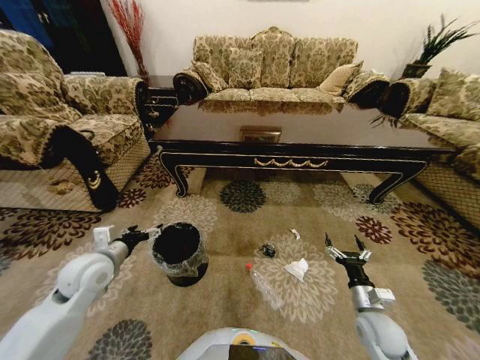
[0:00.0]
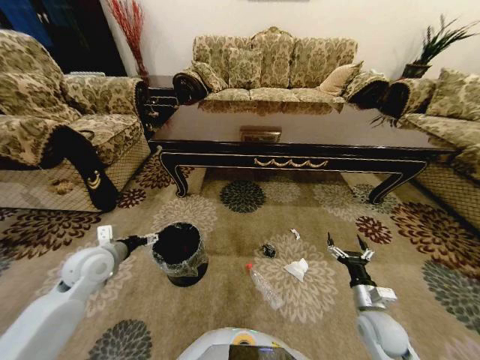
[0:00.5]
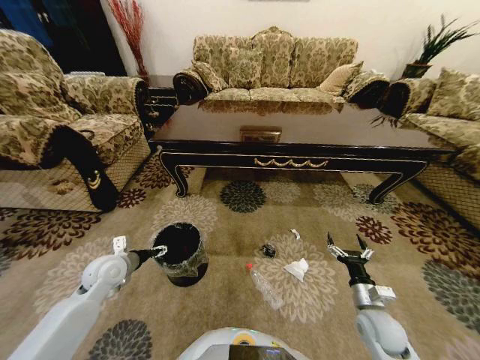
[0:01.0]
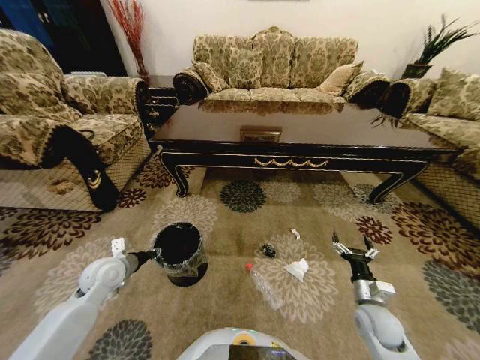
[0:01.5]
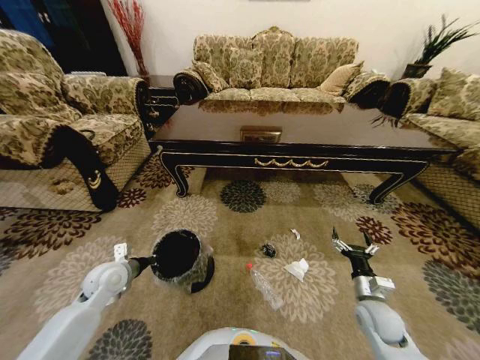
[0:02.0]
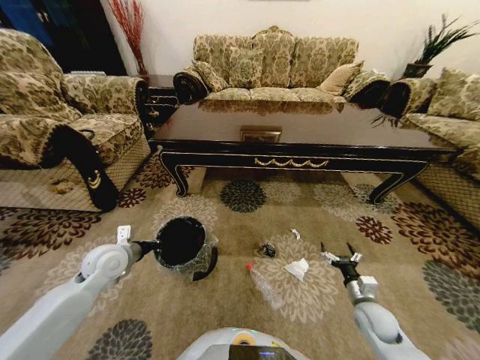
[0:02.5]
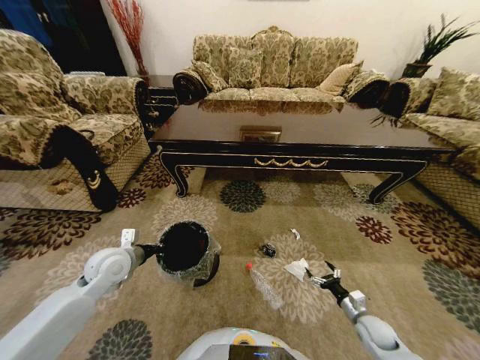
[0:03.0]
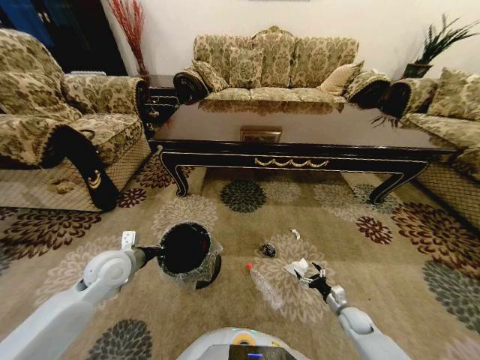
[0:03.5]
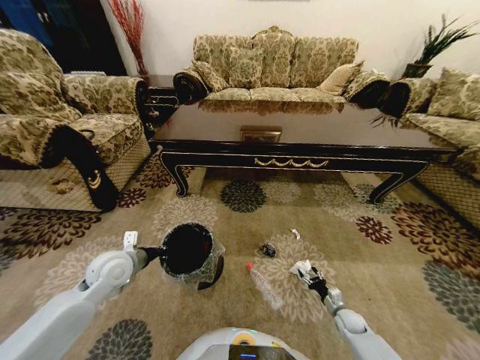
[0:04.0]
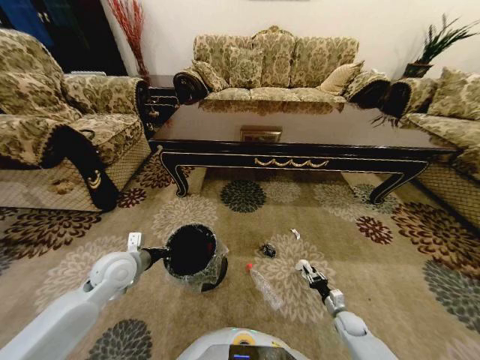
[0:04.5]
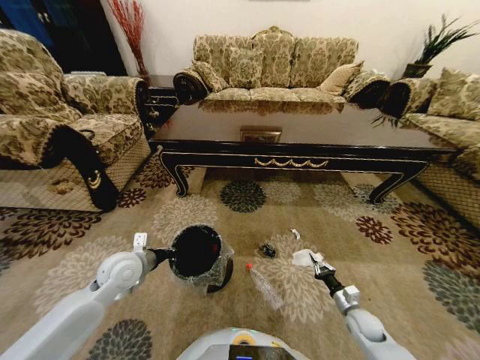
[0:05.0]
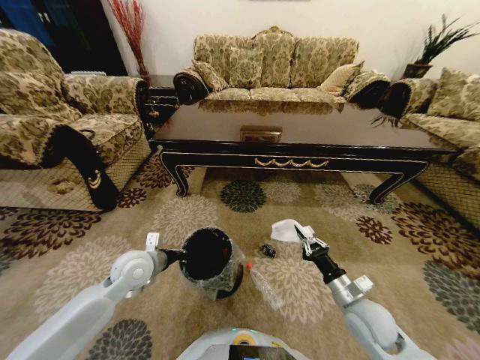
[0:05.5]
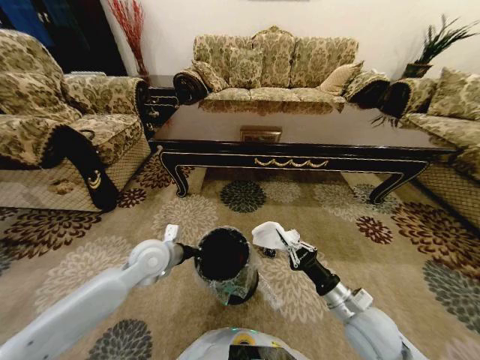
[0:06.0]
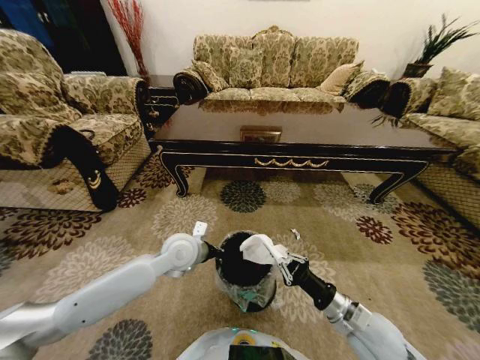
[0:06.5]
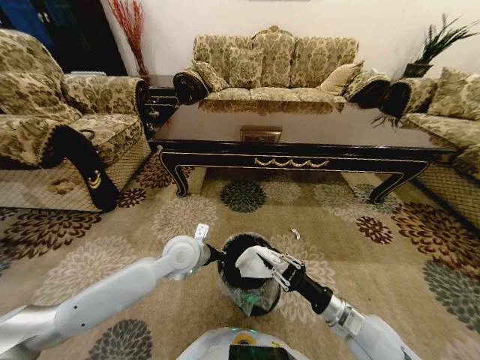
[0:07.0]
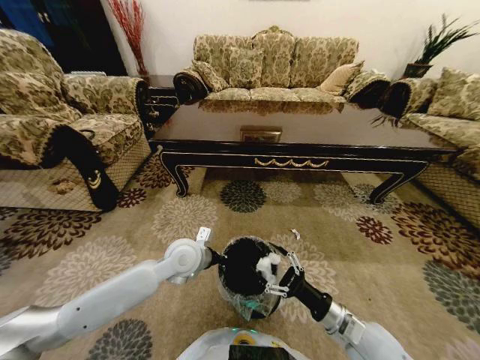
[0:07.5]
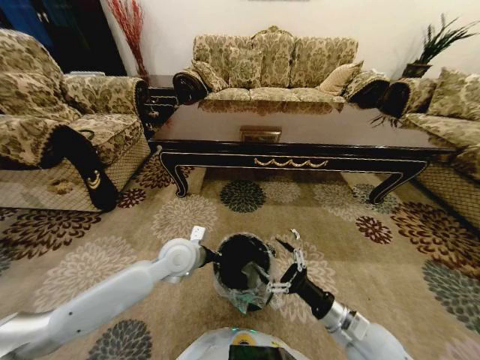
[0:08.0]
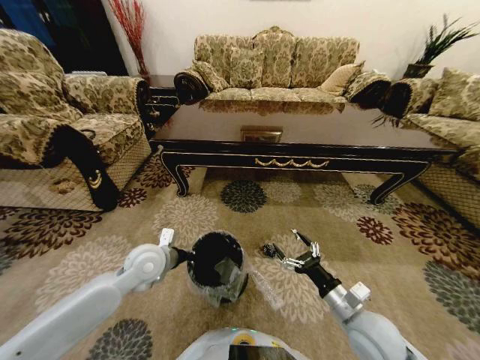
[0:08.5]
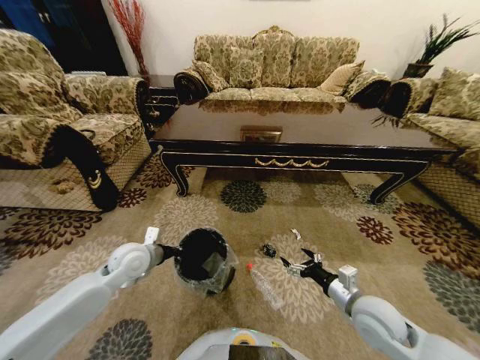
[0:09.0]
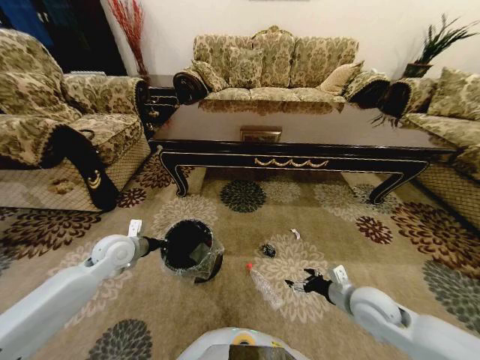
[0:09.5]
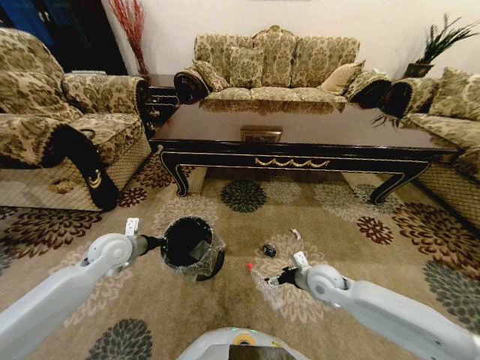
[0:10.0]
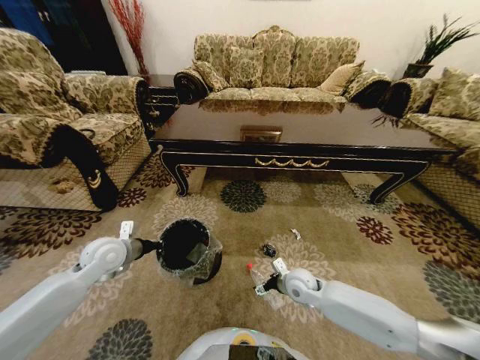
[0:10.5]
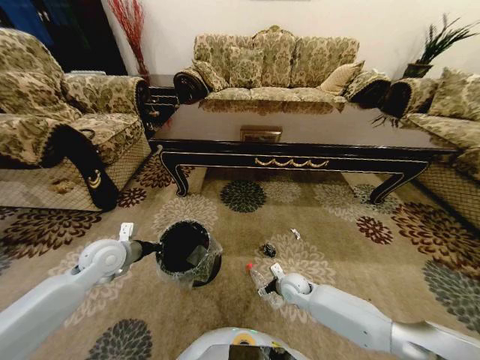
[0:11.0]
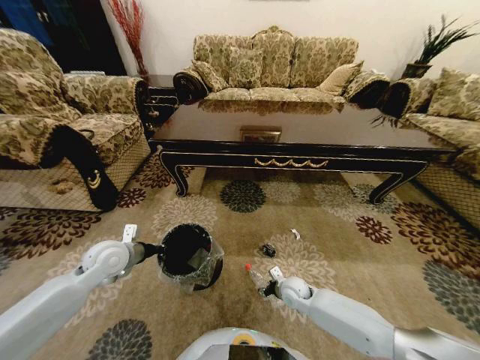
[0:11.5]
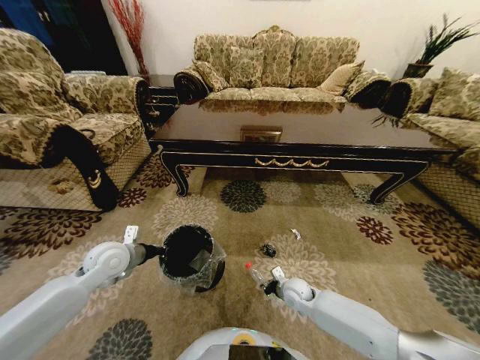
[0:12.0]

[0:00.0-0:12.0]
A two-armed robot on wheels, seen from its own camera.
Task of the whole recording: Move to the front of the table and pick up the trash from the floor, then place it into the trash bin.
0:00.0 to 0:02.0: The left gripper goes roughly 10 cm downward, and closes.
0:02.0 to 0:04.0: The left gripper goes some 5 cm upward, while the right gripper is displaced downward by about 20 cm.
0:04.0 to 0:06.0: The right gripper travels upward and to the left by some 30 cm, and closes its fingers; the left gripper shifts approximately 10 cm to the right.
0:06.0 to 0:08.0: The left gripper is displaced to the right by some 5 cm; the right gripper opens.
0:08.0 to 0:10.0: The left gripper heads to the left, covering some 20 cm. The right gripper is displaced forward by some 15 cm.
0:10.0 to 0:12.0: The right gripper goes approximately 10 cm downward, and closes its fingers.

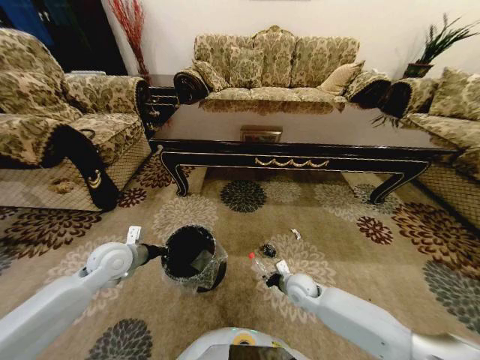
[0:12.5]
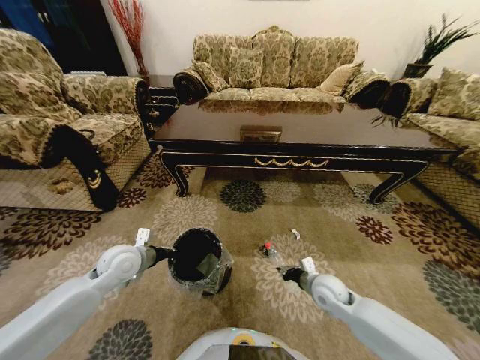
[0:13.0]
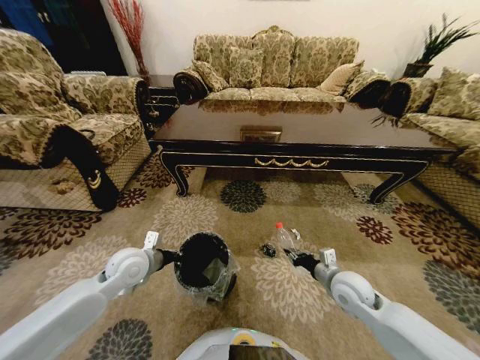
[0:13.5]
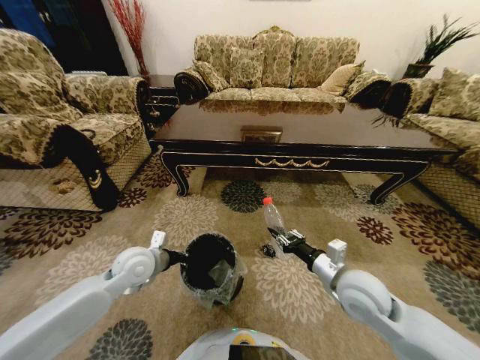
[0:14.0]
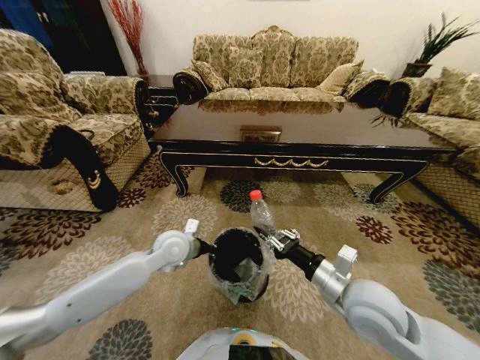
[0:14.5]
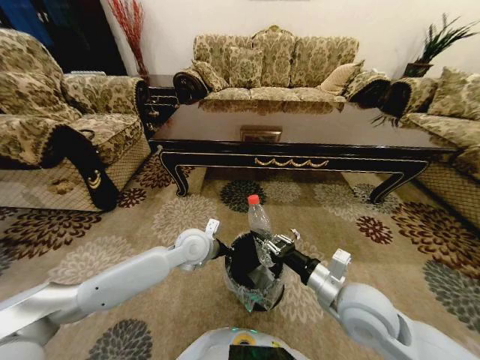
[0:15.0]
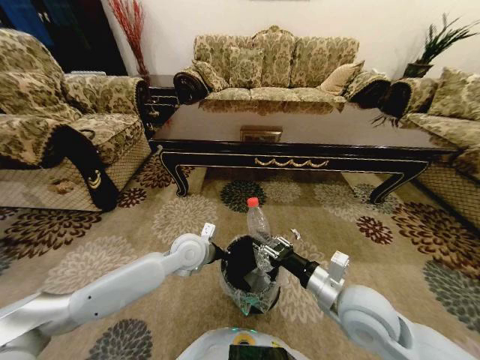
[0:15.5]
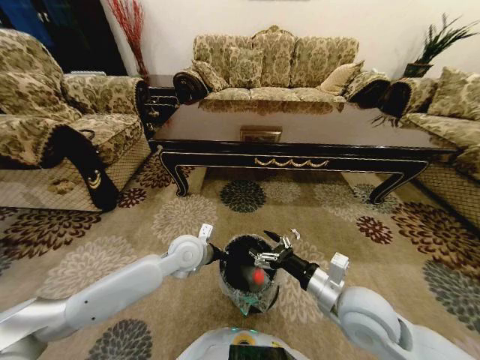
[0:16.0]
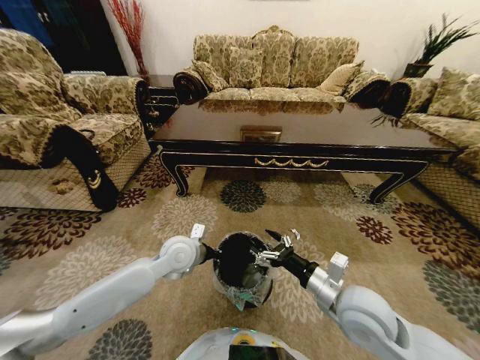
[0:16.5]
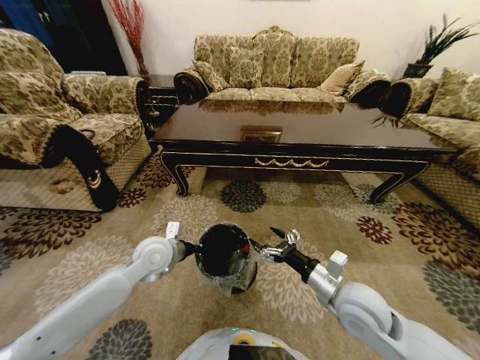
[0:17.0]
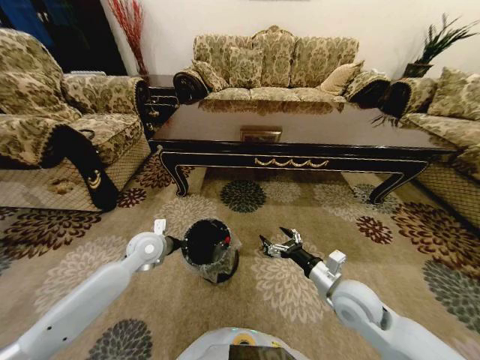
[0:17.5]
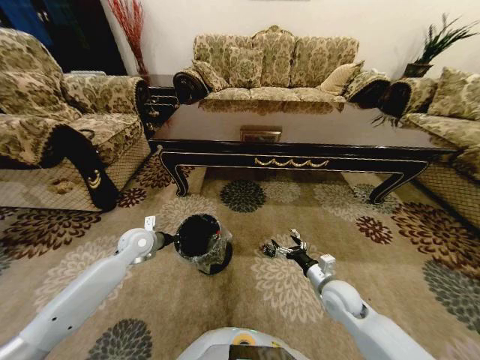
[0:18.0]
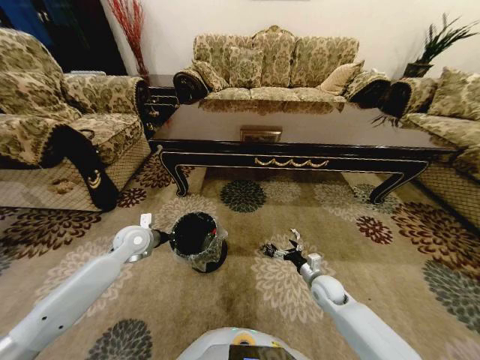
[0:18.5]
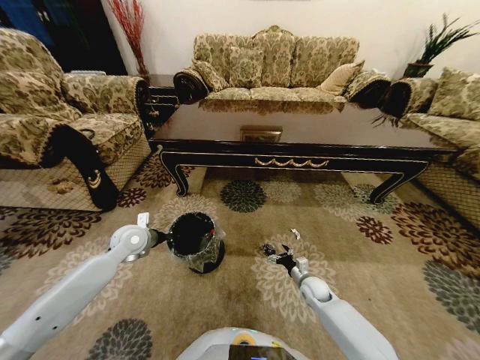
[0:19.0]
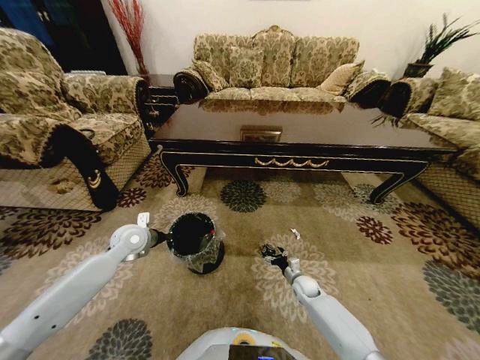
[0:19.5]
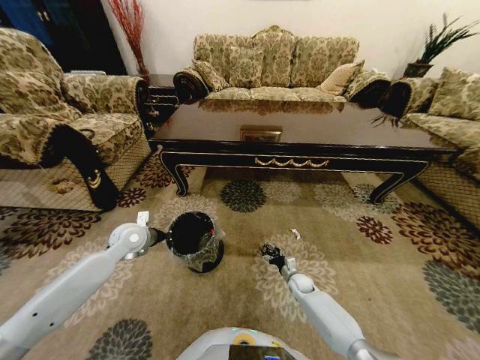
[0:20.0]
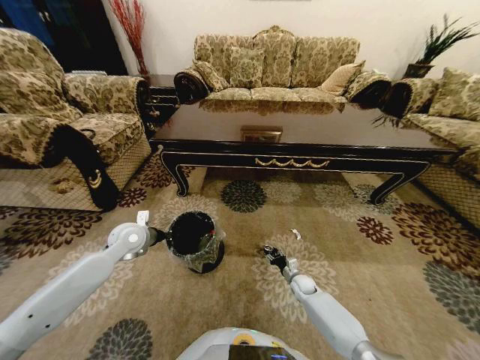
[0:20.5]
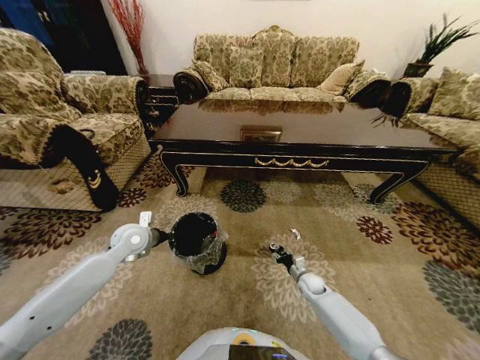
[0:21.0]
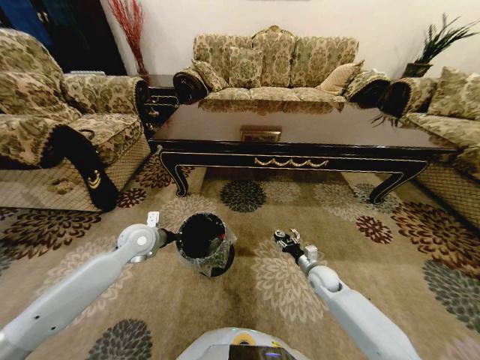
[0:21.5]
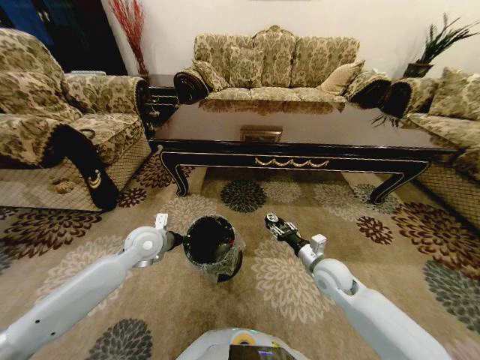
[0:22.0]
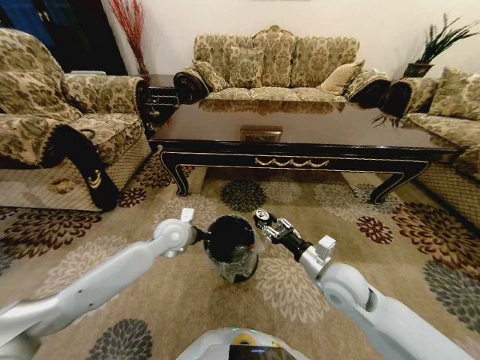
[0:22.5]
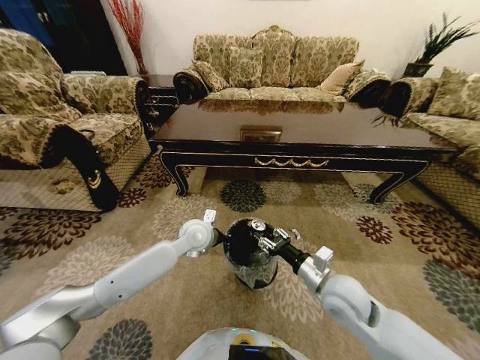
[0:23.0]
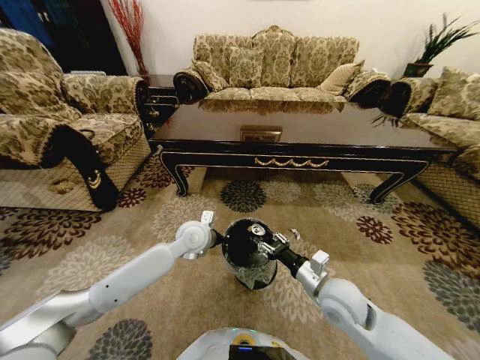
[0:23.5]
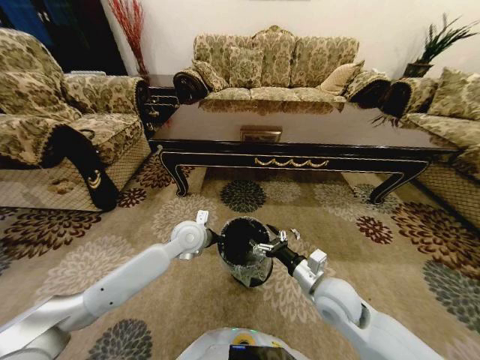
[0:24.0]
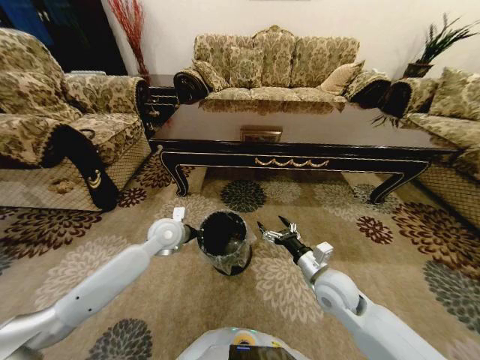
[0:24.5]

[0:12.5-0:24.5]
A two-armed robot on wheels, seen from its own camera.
Task of the whole recording: Move to the front of the table and pick up the trash from the floor, then place it into the trash bin.
0:12.5 to 0:14.5: The right gripper moves upward and backward, some 25 cm. Meanwhile the left gripper travels to the right by roughly 15 cm.
0:14.5 to 0:16.5: The right gripper opens up.
0:16.5 to 0:18.5: The right gripper moves downward and forward, approximately 25 cm. The left gripper goes some 15 cm to the left.
0:18.5 to 0:20.5: The right gripper shifts about 15 cm downward, and closes.
0:20.5 to 0:22.5: The left gripper shifts about 15 cm to the right. The right gripper travels upward by about 30 cm.
0:22.5 to 0:24.5: The left gripper travels to the right and back again, roughly 5 cm each way, while the right gripper opens.

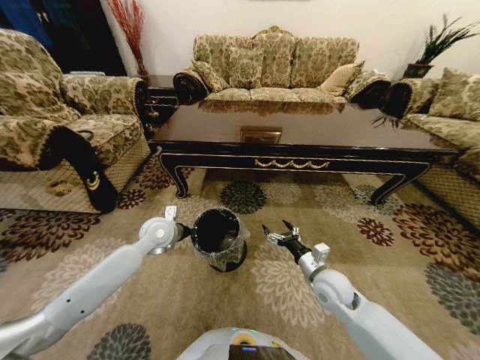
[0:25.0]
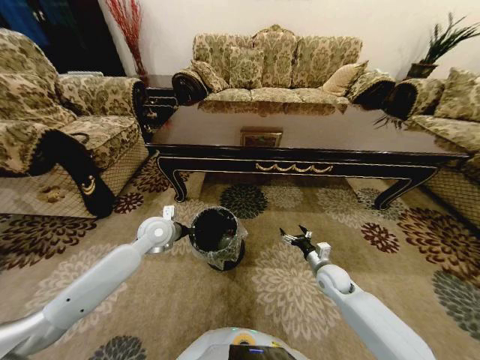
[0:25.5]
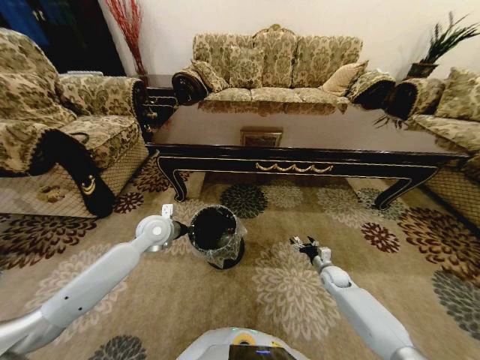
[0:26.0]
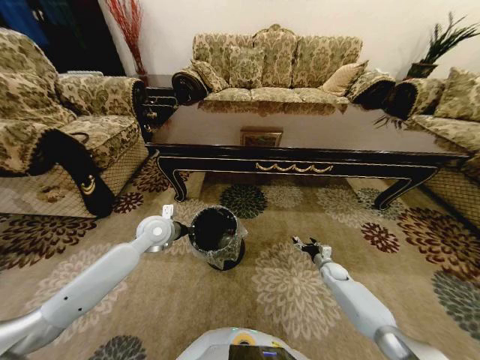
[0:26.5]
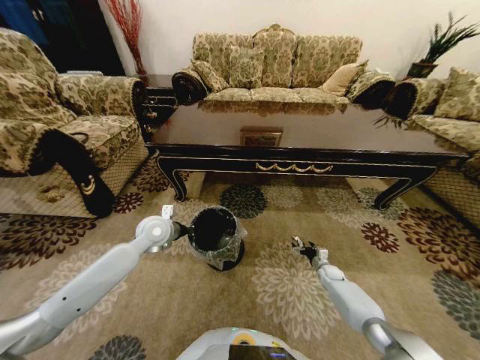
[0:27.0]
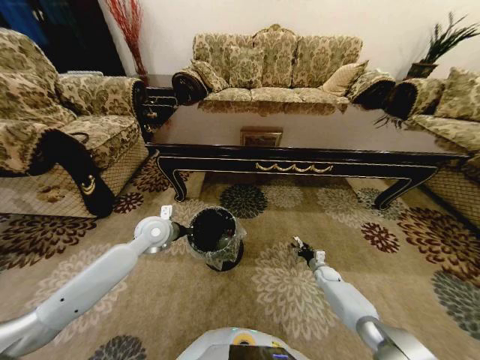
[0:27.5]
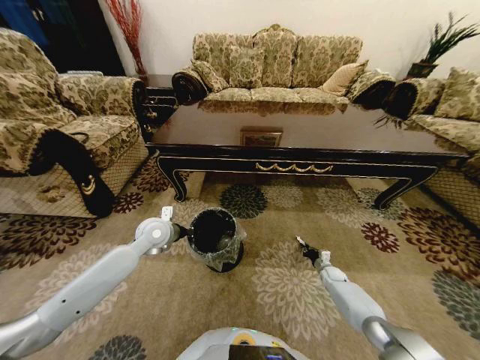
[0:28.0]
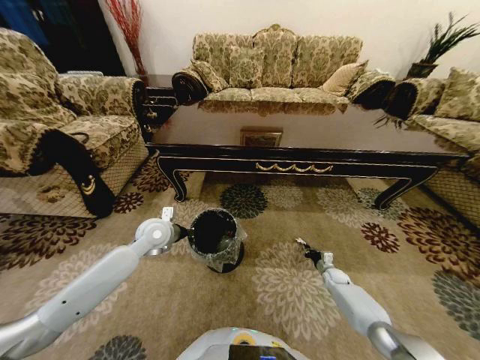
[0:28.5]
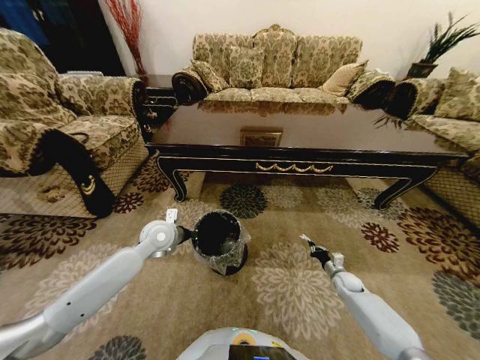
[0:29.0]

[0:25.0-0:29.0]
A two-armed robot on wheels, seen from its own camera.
Task of the whole recording: Move to the front of the table and pick up the trash from the floor, then place it into the trash bin.
0:25.0 to 0:27.0: The right gripper moves downward, to the right and forward, about 30 cm.
0:27.0 to 0:29.0: The right gripper shifts by roughly 5 cm, and closes.
